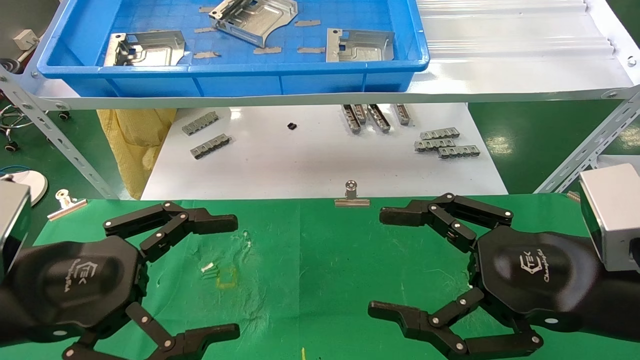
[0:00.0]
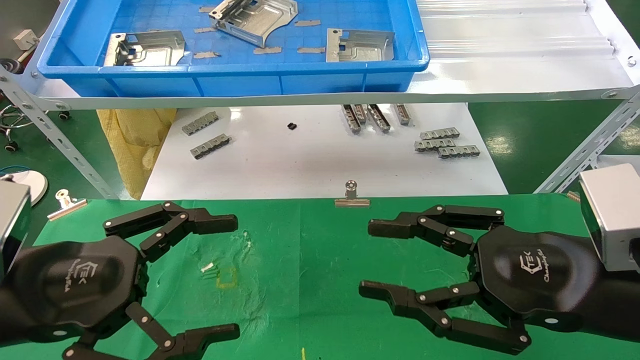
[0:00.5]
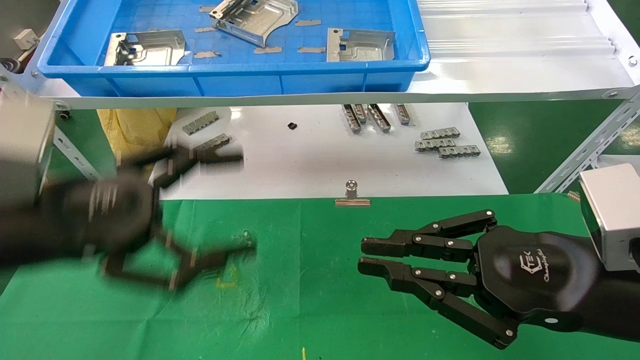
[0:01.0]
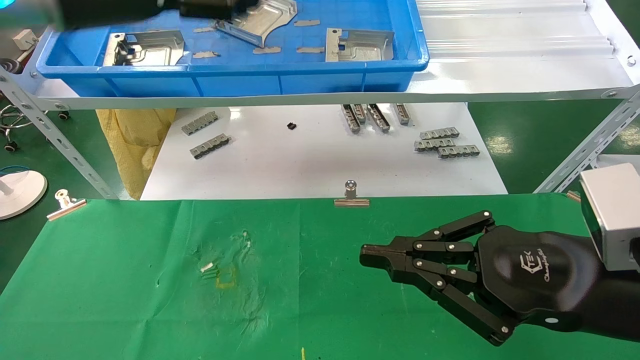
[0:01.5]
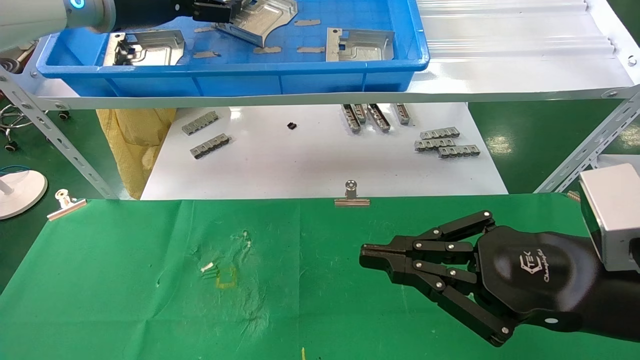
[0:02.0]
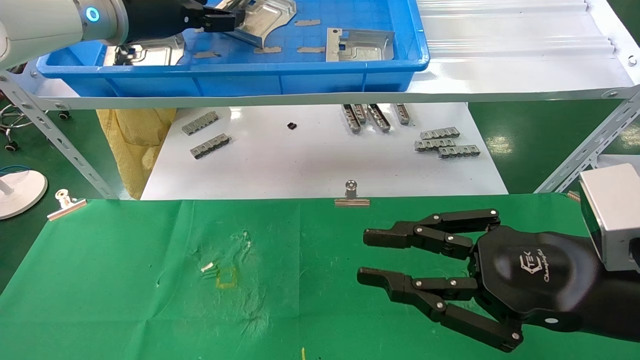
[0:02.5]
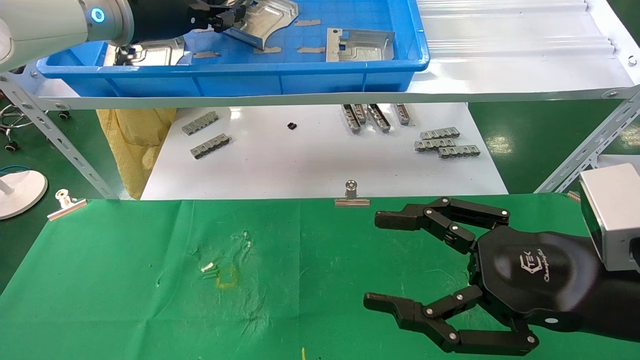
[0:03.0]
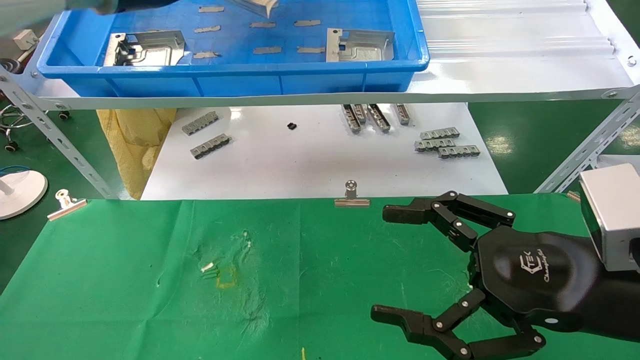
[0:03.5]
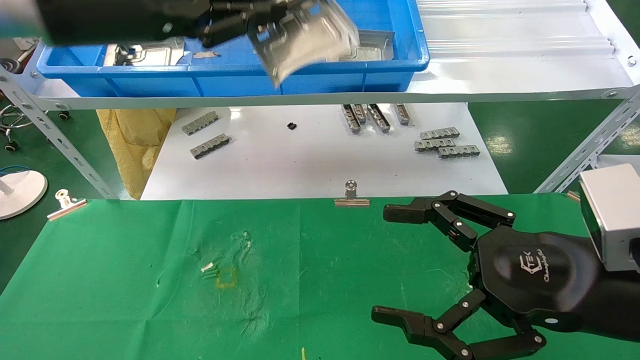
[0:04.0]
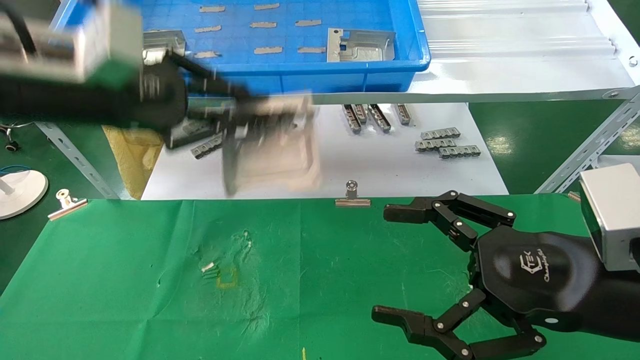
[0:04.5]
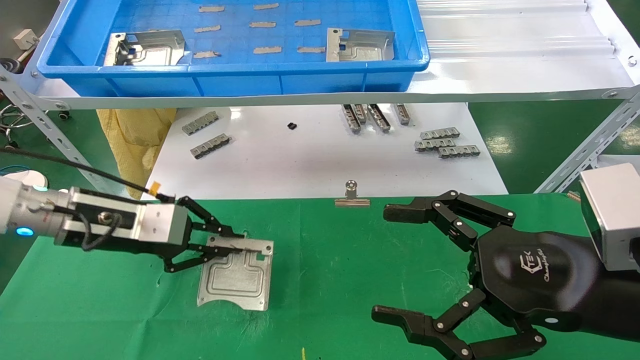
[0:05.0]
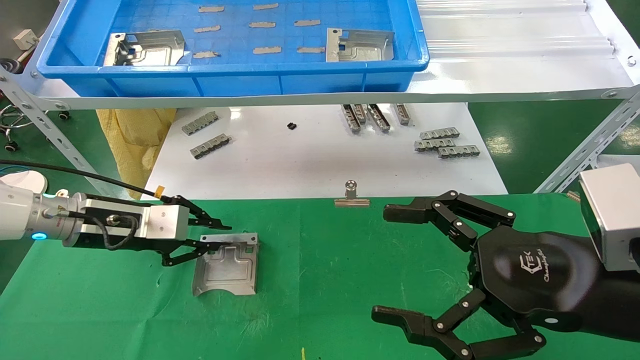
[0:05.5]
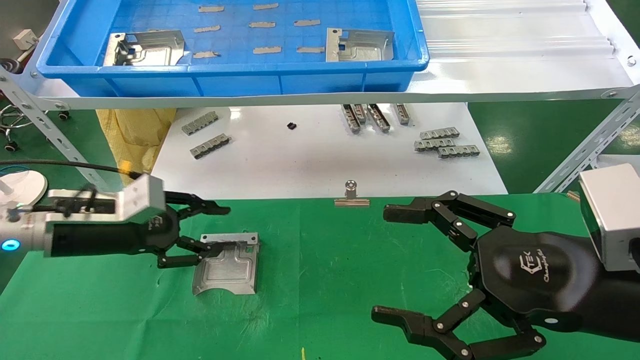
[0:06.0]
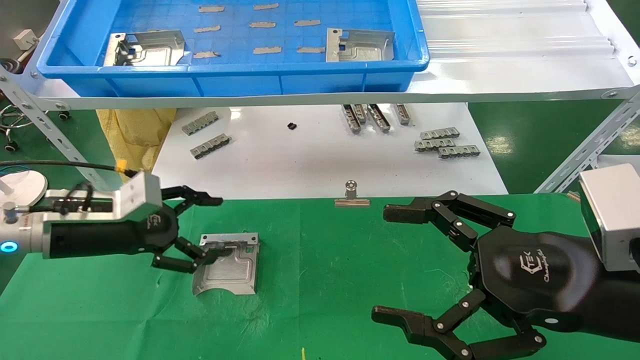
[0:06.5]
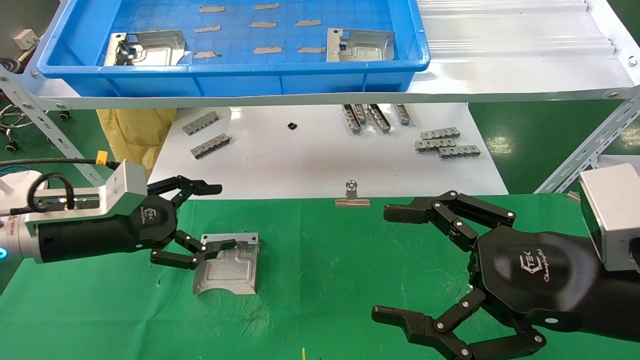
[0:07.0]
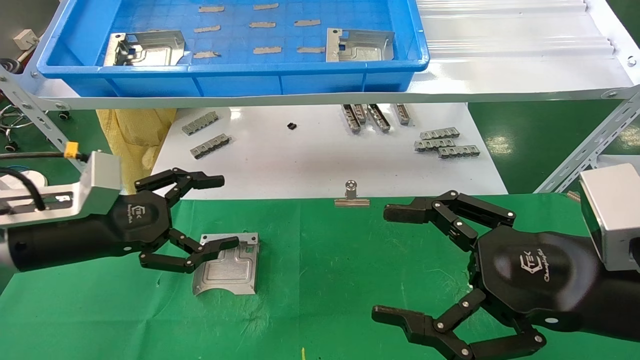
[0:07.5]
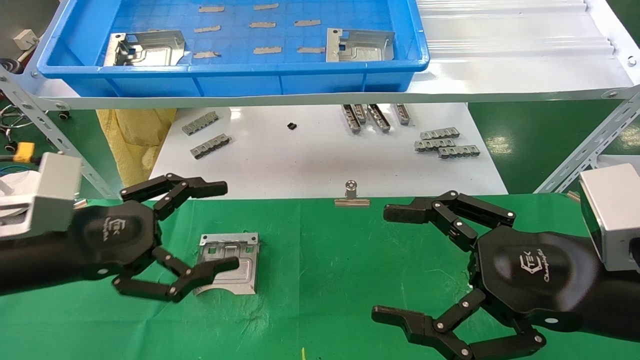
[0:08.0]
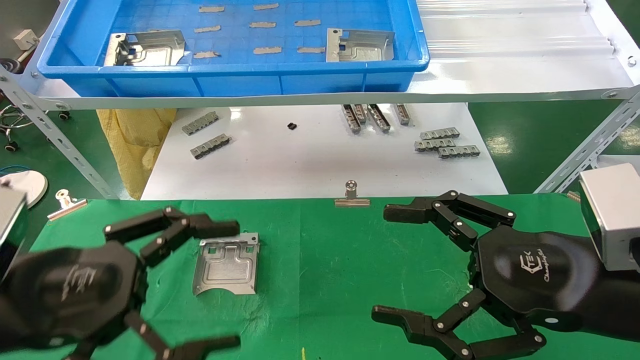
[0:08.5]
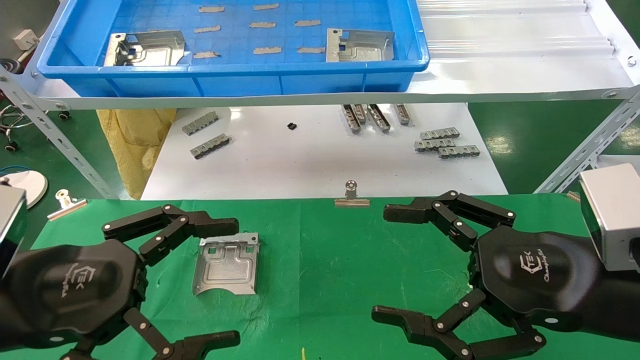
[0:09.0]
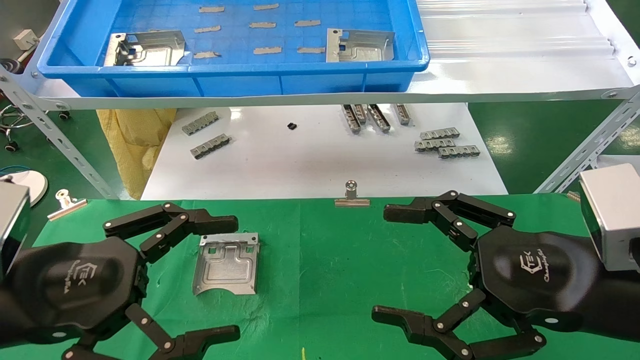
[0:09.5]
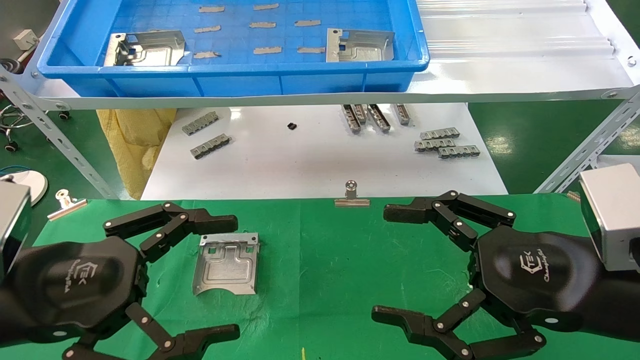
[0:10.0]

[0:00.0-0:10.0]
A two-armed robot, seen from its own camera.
Task of the whole recording: use the mechanical arm to pick up the parts and place them on the table.
Step, 0:01.5 to 0:03.0: Pick up the hard drive bracket from the feeding area.
Step, 0:03.5 to 0:05.5: Place the hard drive bracket into the box.
0:00.0 to 0:02.0: The right gripper closes up; the left gripper goes some 35 cm upward and forward.
0:02.0 to 0:04.0: The left gripper is displaced backward by roughly 10 cm, and closes its fingers; the right gripper opens.
0:04.0 to 0:06.0: The left gripper travels downward by about 25 cm.
0:06.0 to 0:08.0: The left gripper shifts approximately 10 cm backward, and opens.
0:08.0 to 0:10.0: The left gripper is displaced backward by roughly 5 cm.
